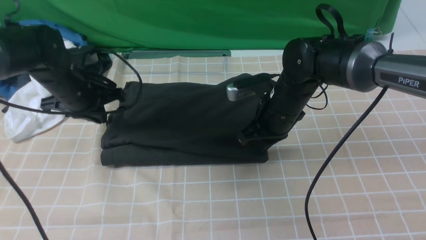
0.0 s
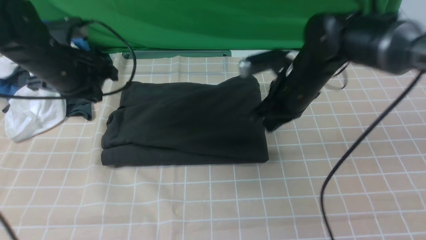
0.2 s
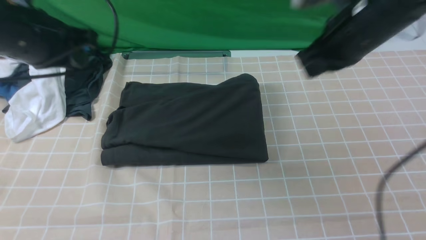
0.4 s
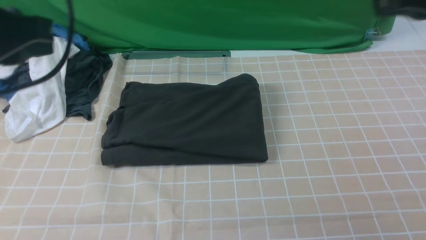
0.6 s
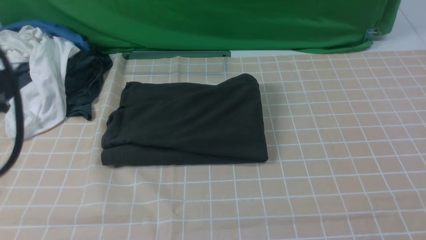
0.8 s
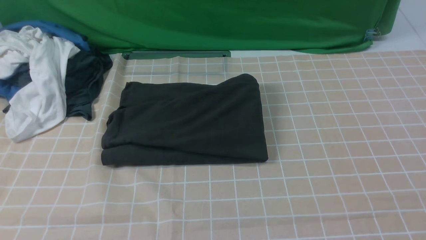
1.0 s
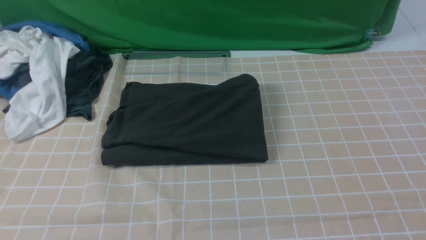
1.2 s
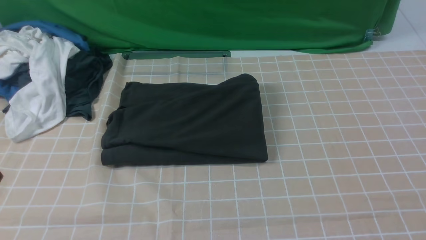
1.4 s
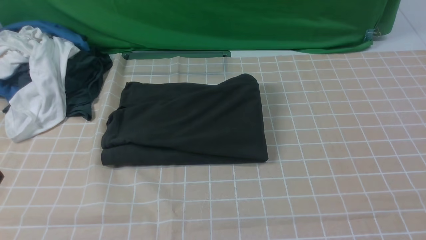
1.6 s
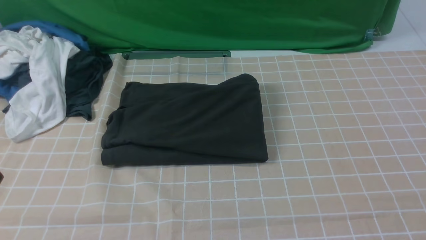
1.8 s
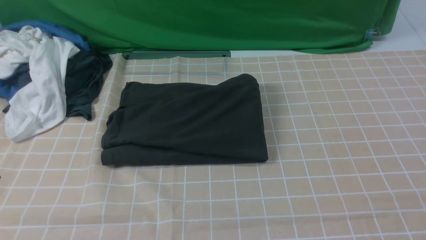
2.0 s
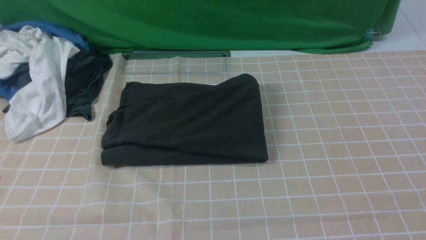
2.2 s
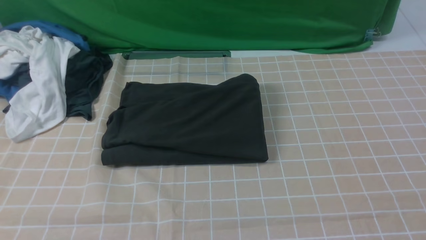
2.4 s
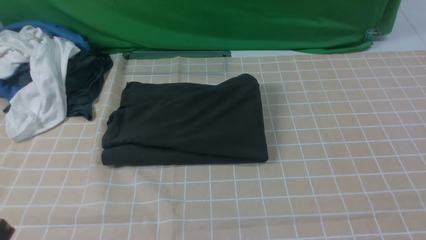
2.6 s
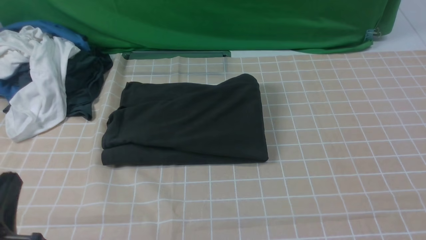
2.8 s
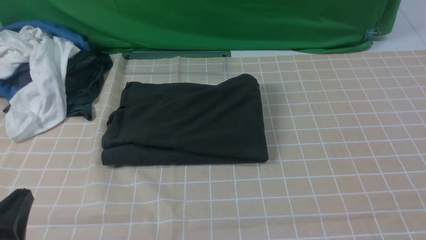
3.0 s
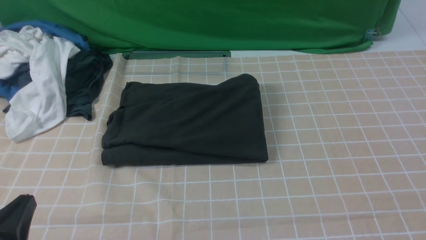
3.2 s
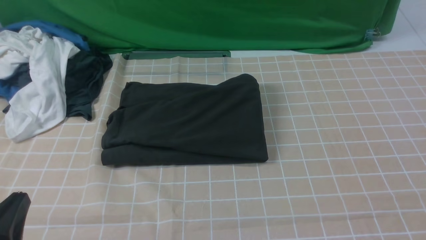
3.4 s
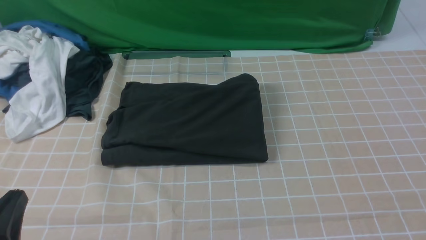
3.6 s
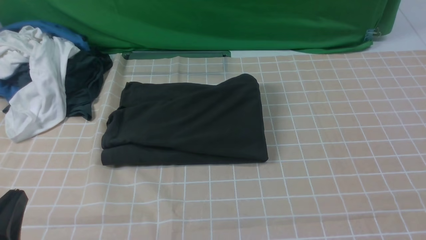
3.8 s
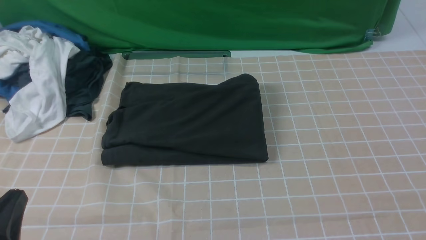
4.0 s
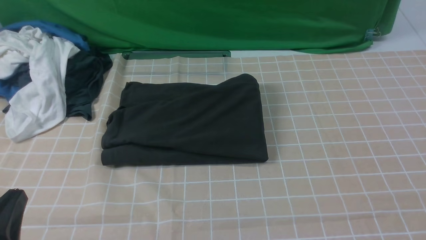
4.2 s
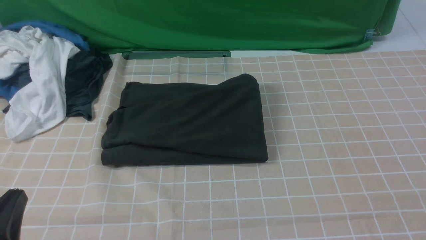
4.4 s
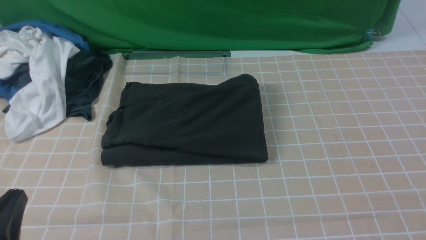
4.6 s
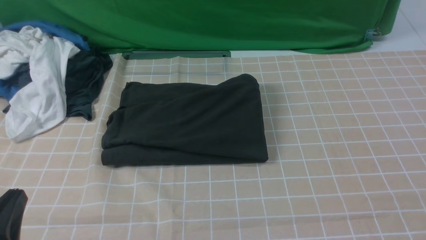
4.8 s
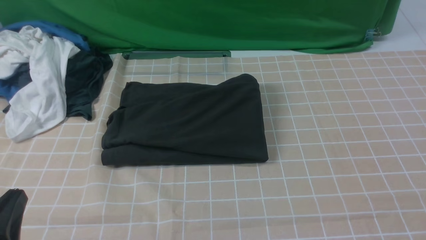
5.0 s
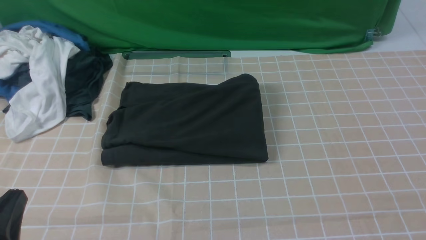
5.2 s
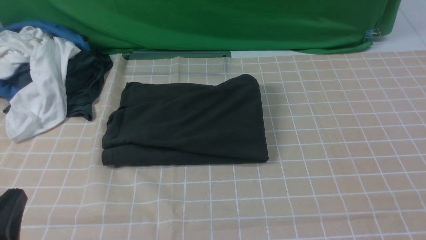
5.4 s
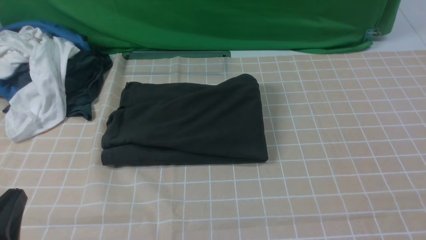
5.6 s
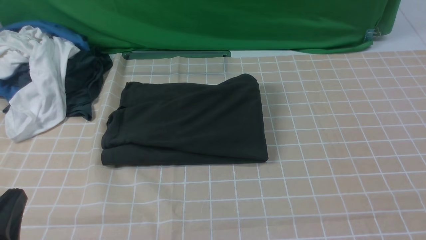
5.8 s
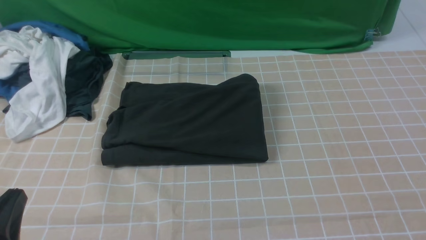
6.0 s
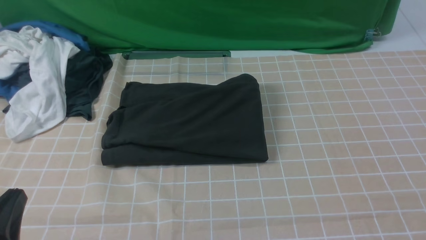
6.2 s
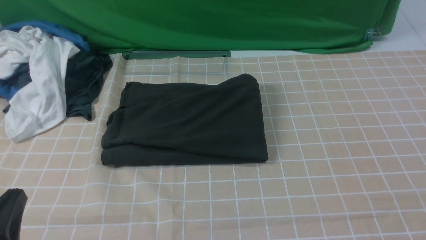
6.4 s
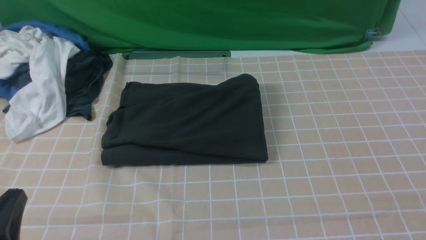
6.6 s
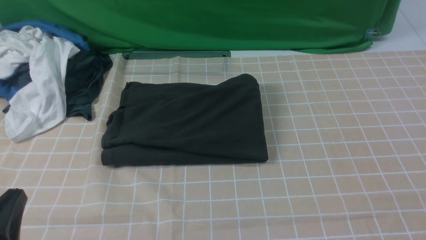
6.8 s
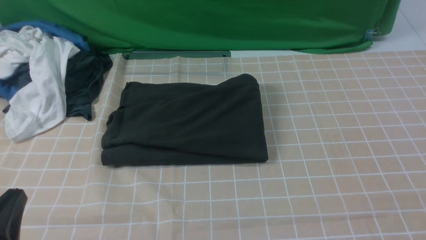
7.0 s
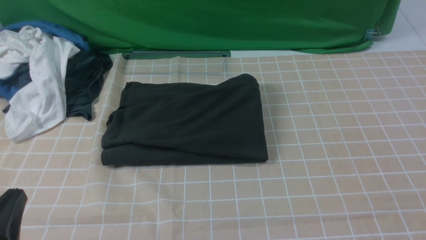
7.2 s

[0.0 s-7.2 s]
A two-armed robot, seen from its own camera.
0.0 to 1.4 s: The left gripper goes roughly 35 cm backward, while the right gripper moves backward, to the right and upward, about 40 cm.
1.4 to 2.8 s: The left gripper travels downward by some 10 cm.
2.8 to 4.4 s: The grippers stay close to where they were, moving slightly.
5.8 to 7.2 s: Neither gripper changes place.
